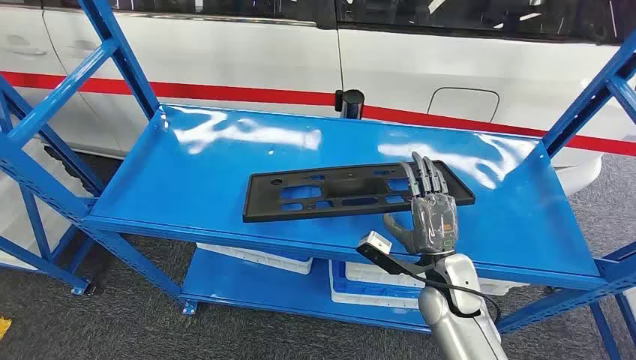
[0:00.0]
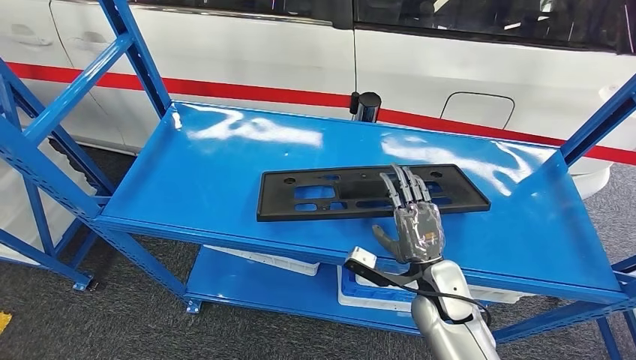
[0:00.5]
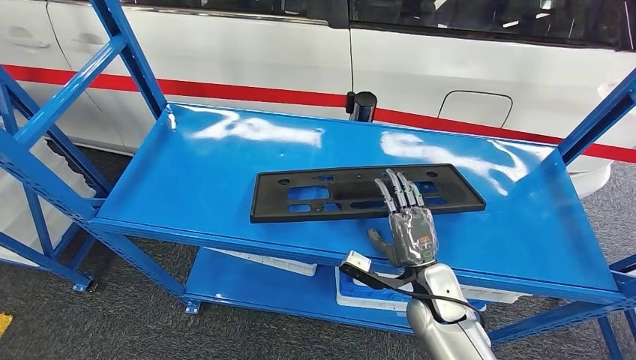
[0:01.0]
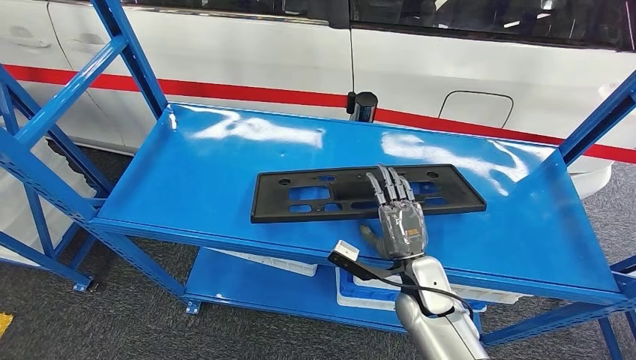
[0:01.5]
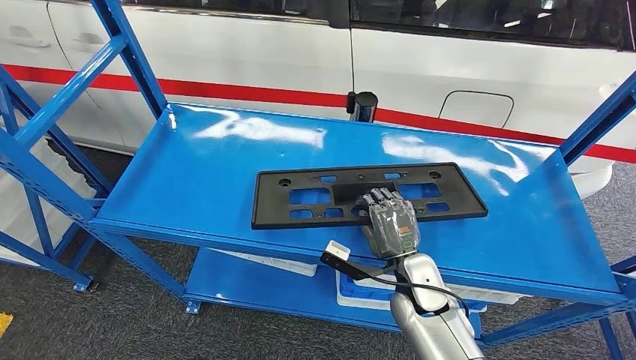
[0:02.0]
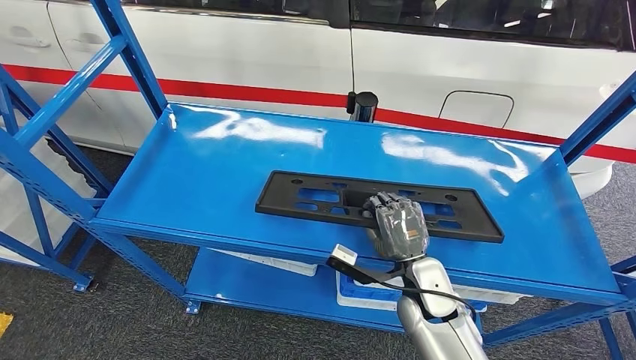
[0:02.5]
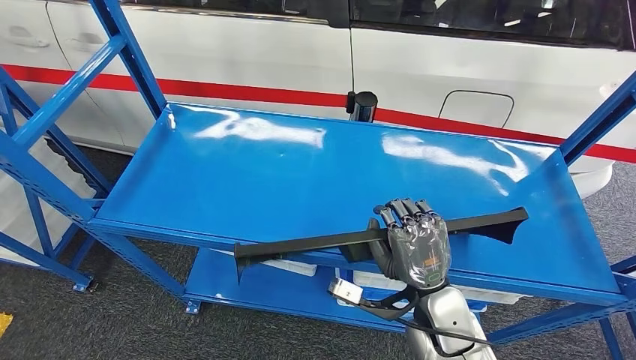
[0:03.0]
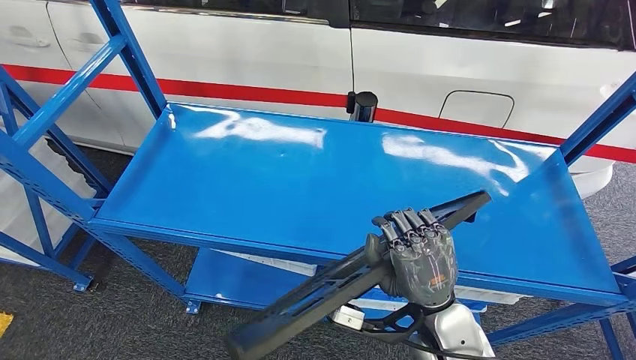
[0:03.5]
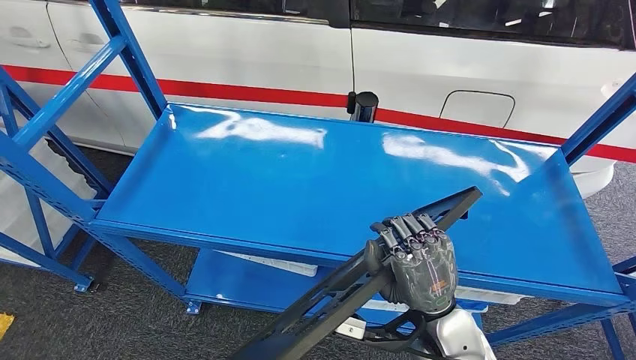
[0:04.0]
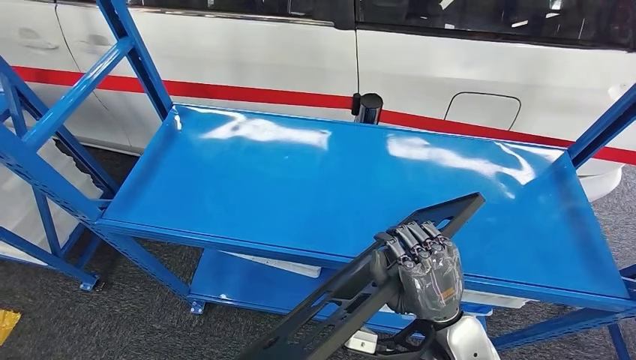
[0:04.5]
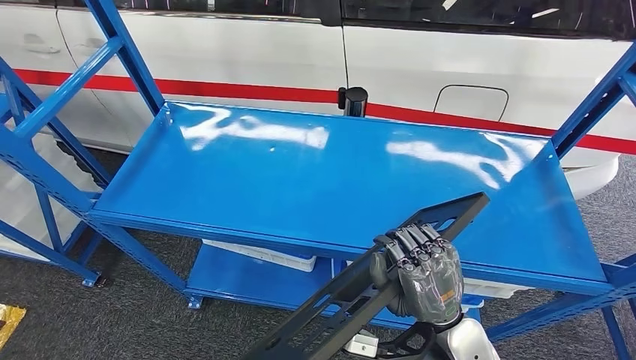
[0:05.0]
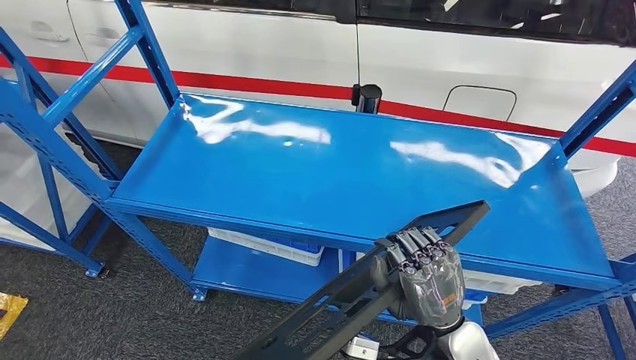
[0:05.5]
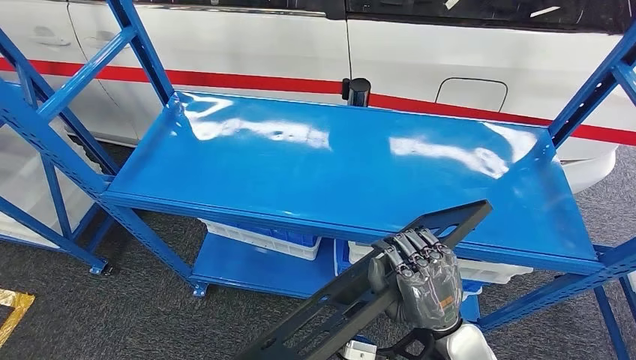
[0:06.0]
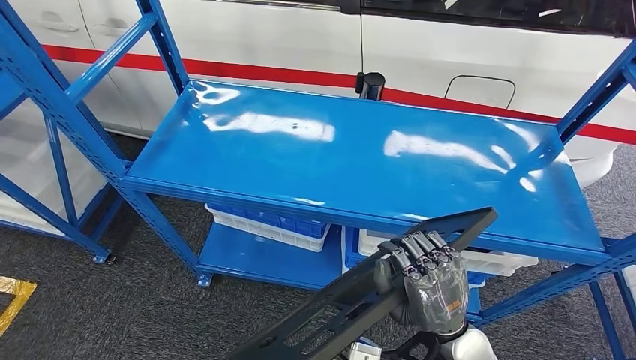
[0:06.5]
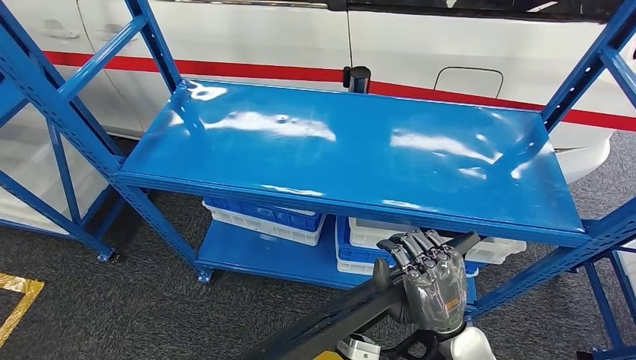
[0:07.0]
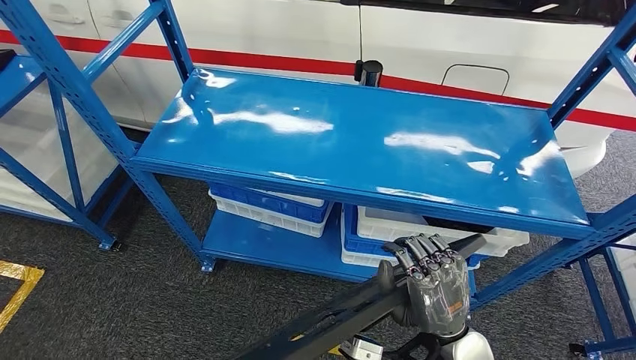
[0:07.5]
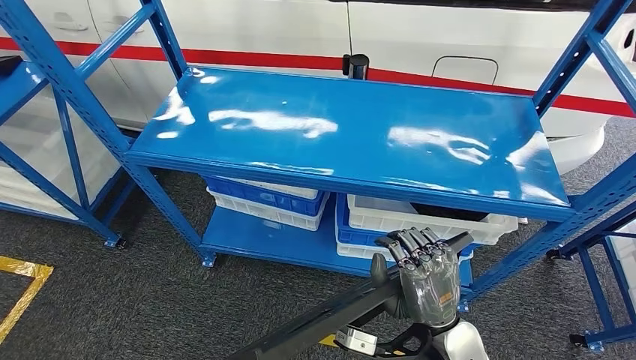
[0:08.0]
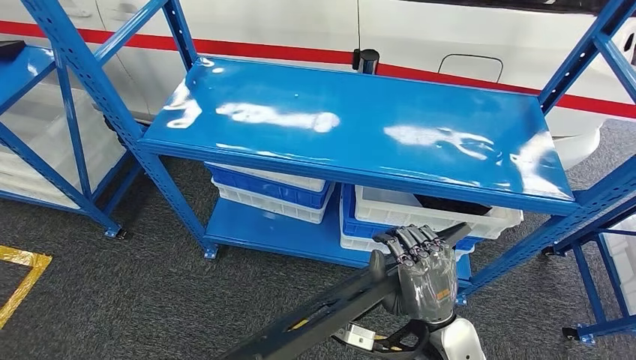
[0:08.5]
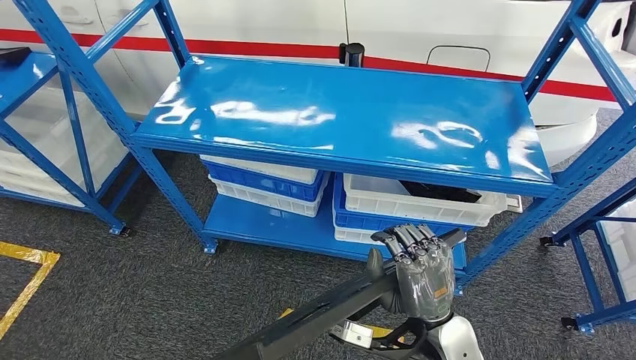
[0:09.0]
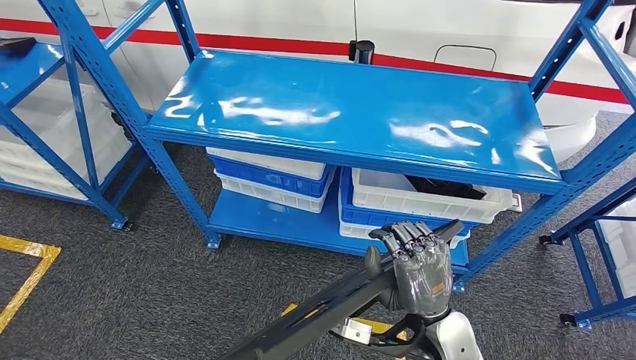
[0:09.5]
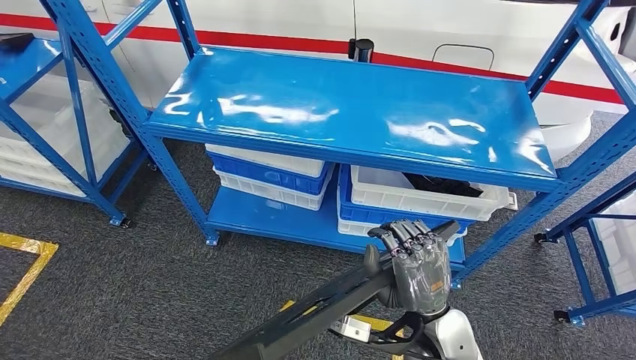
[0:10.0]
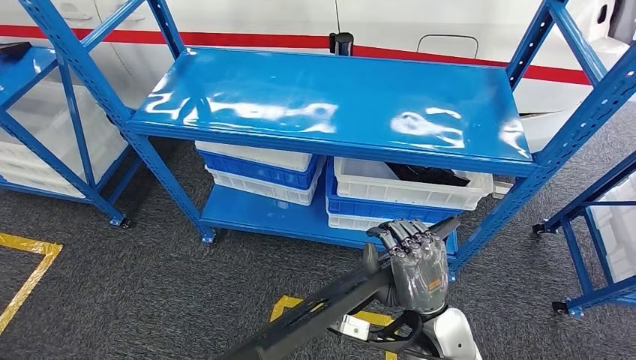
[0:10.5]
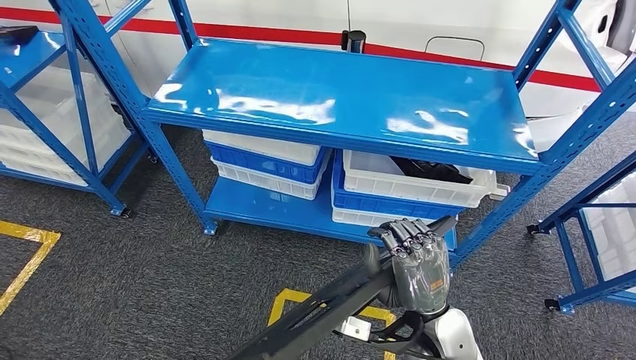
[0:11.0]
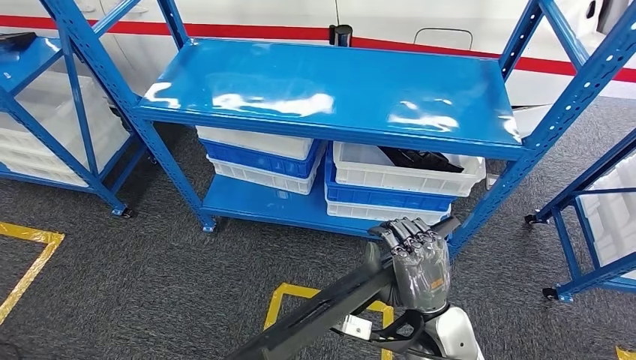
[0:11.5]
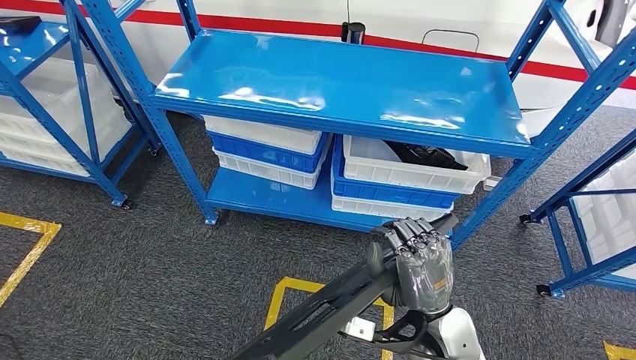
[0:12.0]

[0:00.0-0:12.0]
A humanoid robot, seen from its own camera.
Step, 0:00.0 to 0:05.0: Pick up the large material from the shelf.
0:02.0 to 0:04.0: The right hand is displaced backward and upward by about 10 cm.

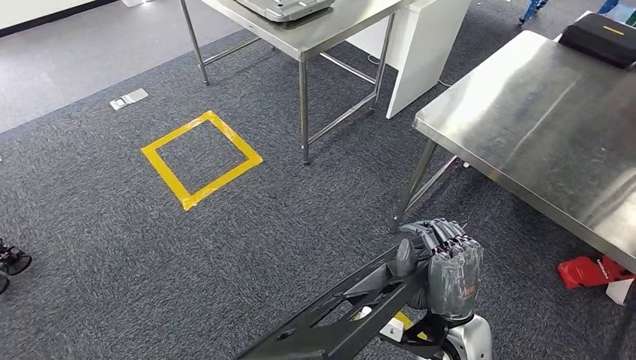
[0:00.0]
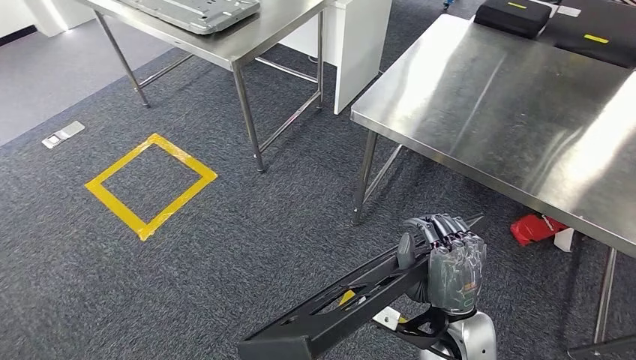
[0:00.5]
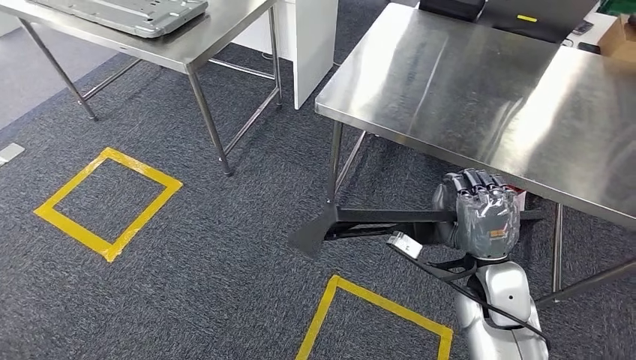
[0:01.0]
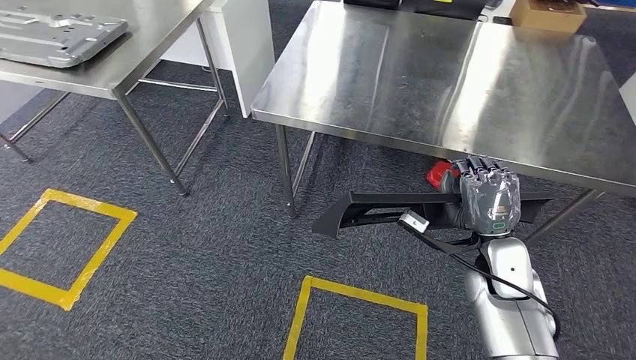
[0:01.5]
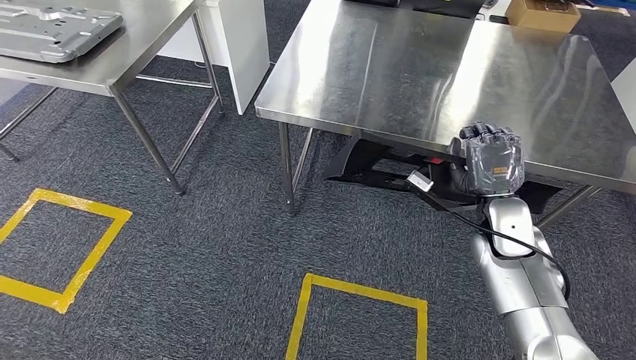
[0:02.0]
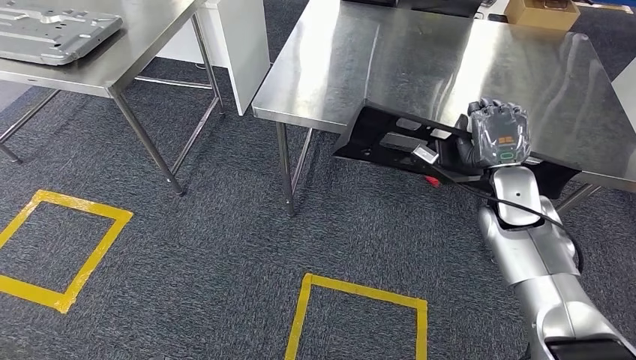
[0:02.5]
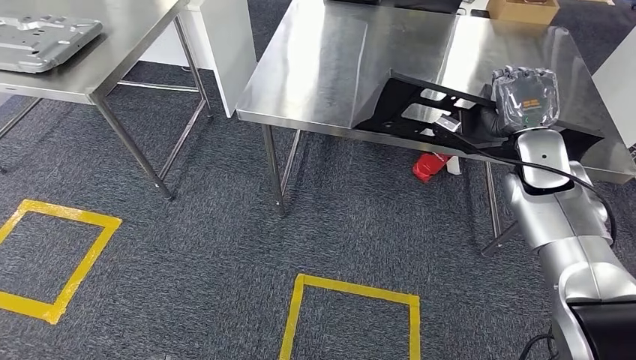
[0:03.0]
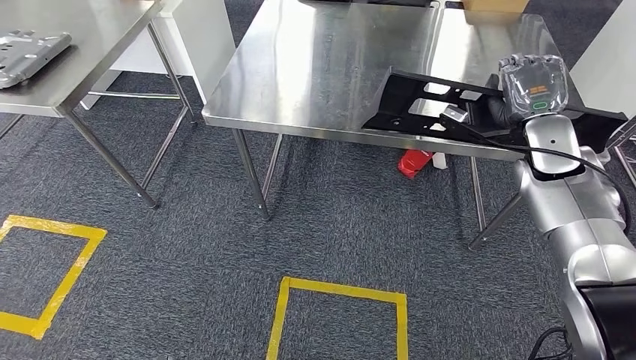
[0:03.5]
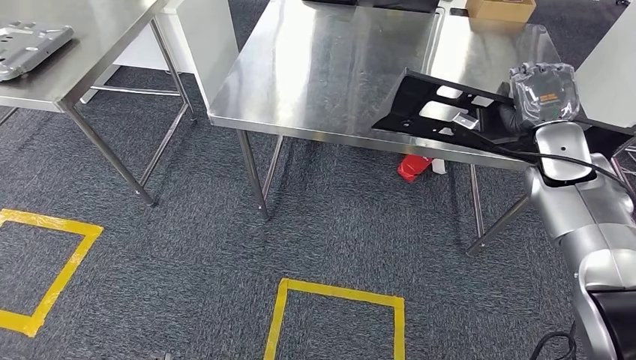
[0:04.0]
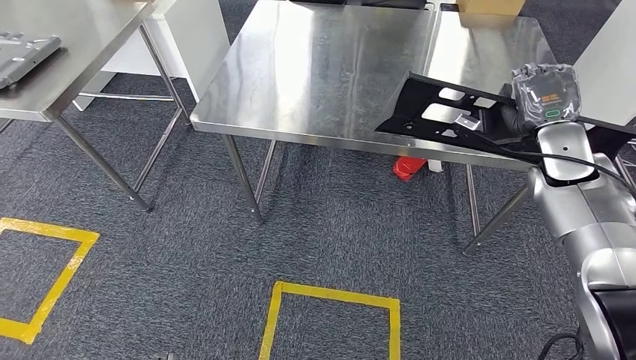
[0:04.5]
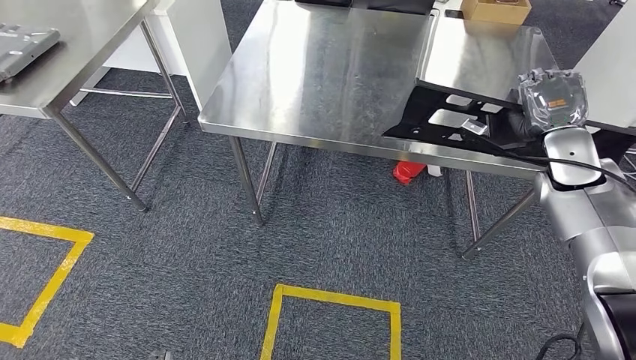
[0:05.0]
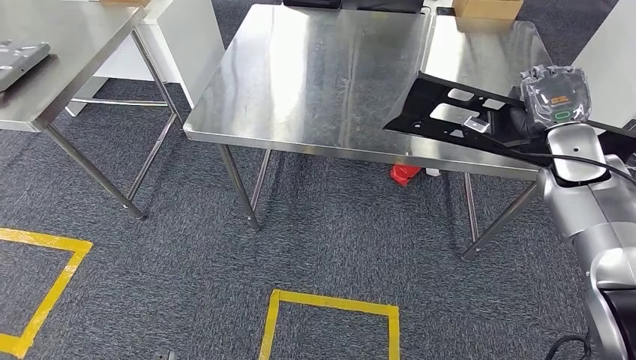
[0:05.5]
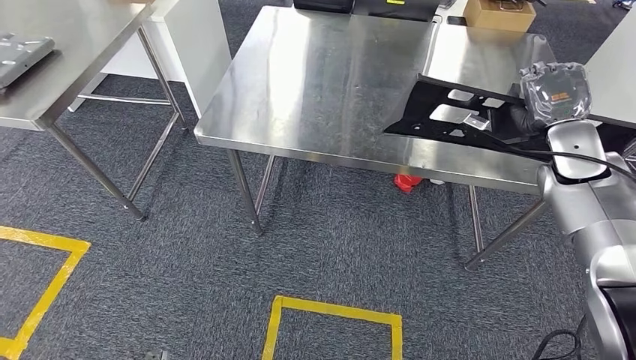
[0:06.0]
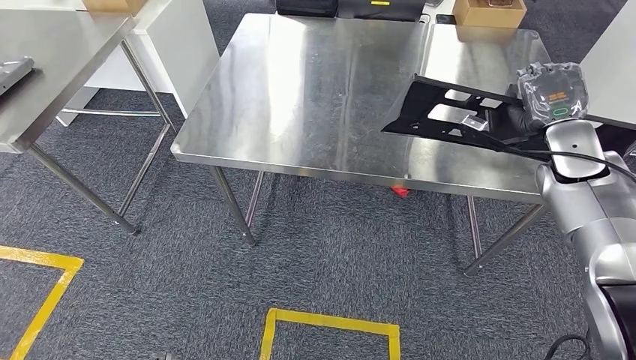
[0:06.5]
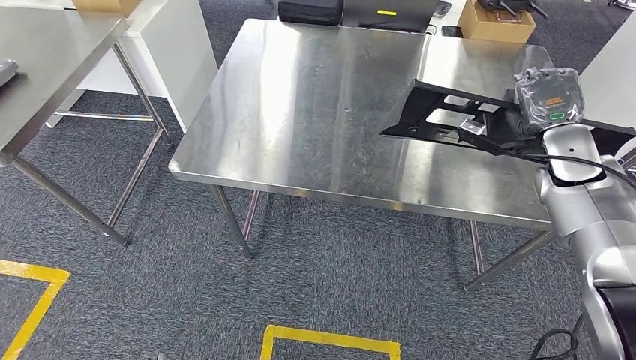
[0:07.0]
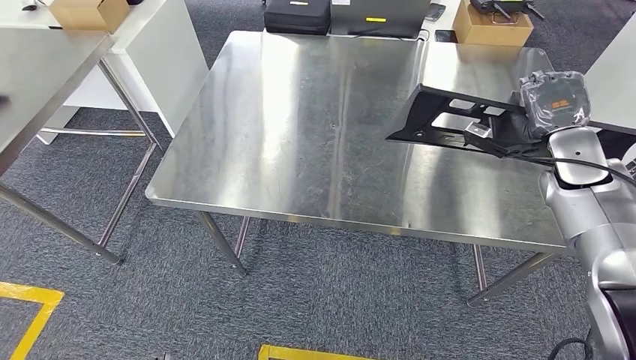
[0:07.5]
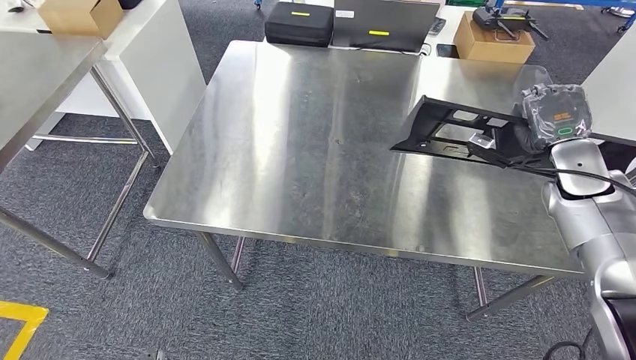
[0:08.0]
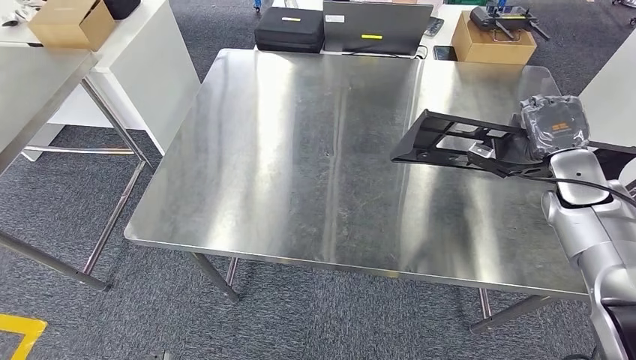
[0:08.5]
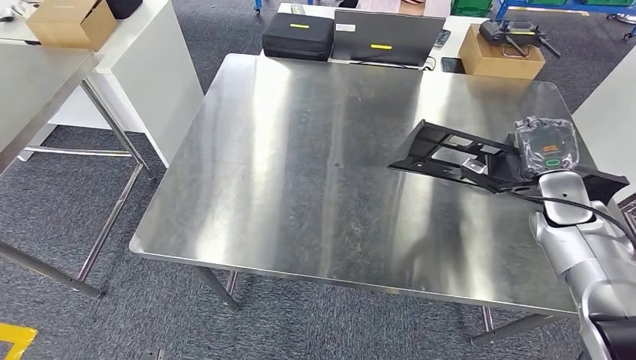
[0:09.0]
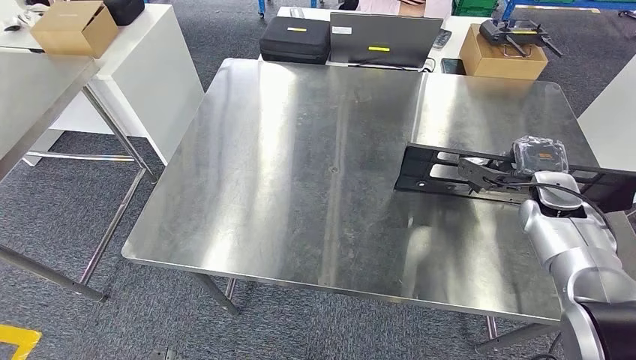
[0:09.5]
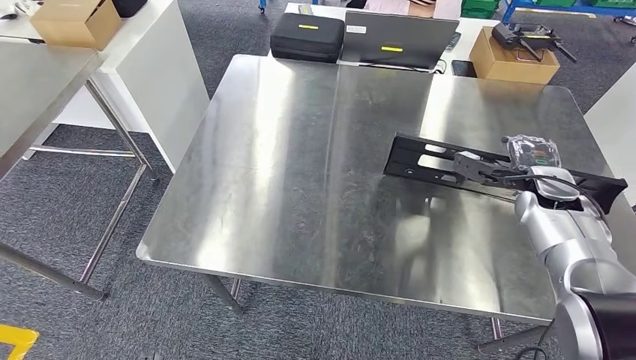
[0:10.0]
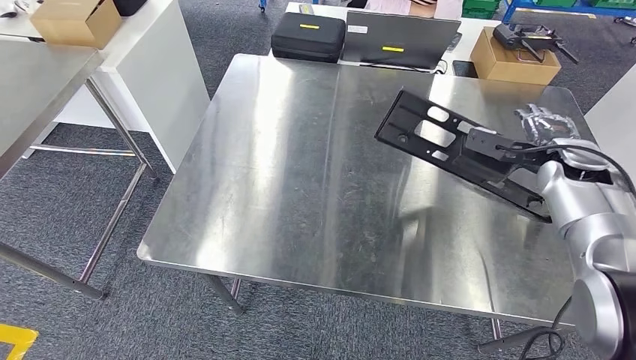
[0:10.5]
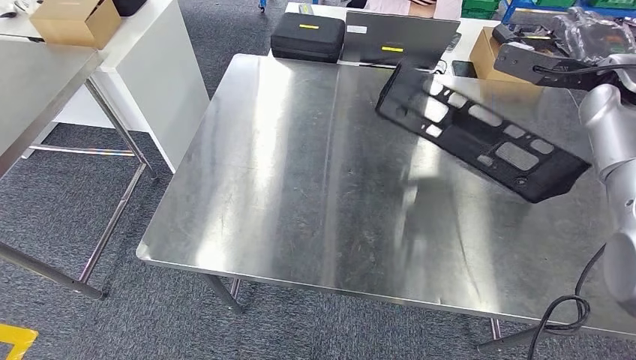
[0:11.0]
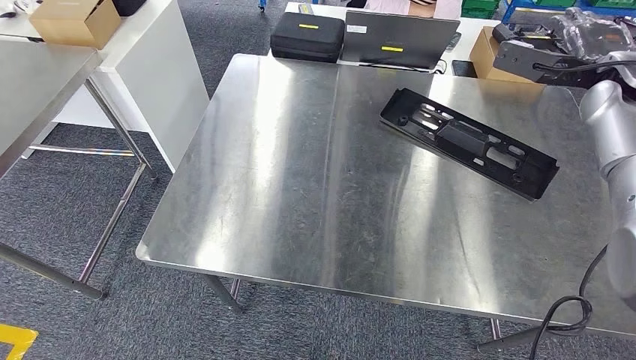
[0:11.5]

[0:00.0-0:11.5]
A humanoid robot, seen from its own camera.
Step, 0:00.0 to 0:04.0: Move the large material to the workbench.
